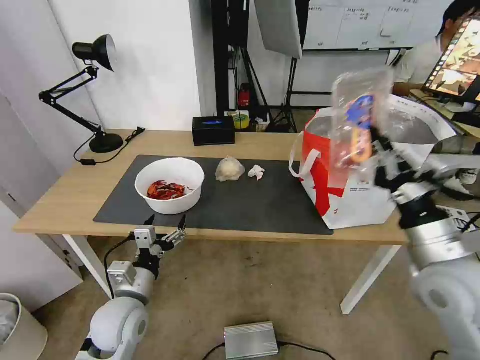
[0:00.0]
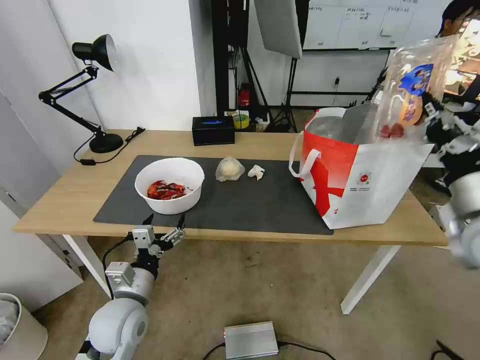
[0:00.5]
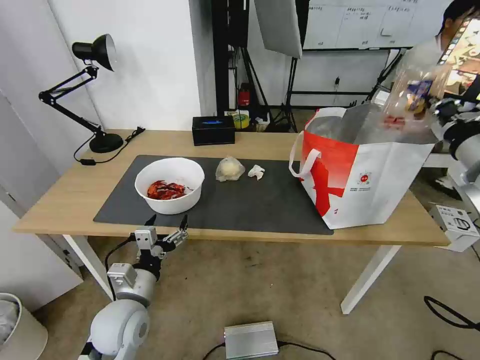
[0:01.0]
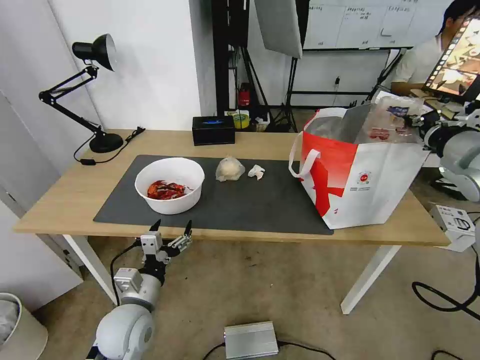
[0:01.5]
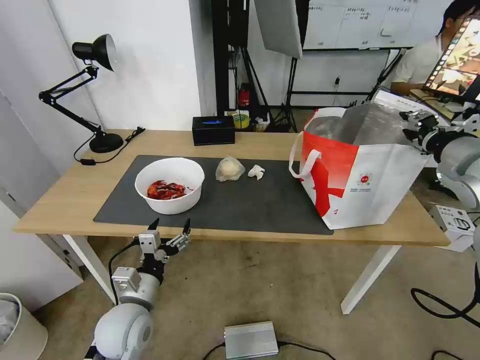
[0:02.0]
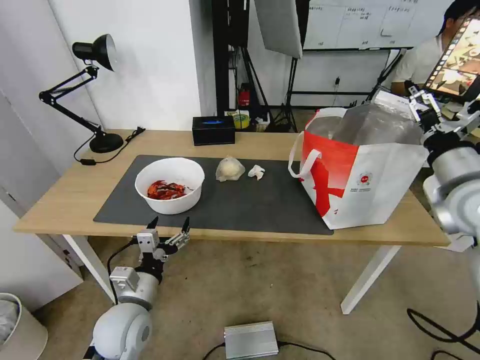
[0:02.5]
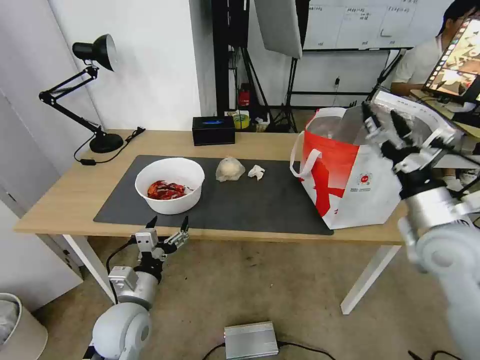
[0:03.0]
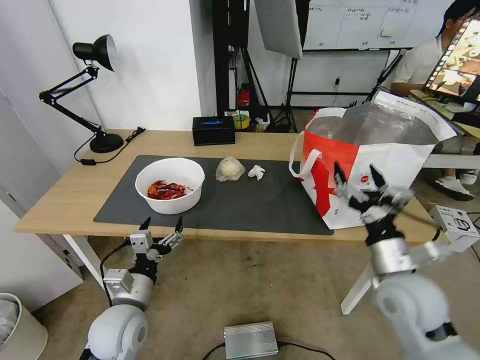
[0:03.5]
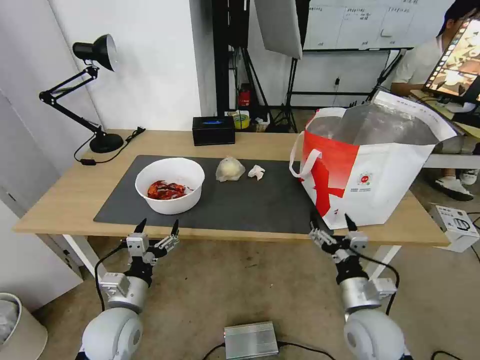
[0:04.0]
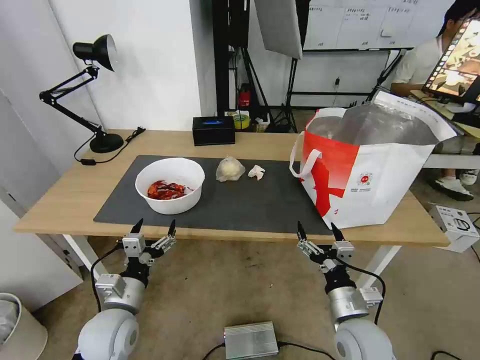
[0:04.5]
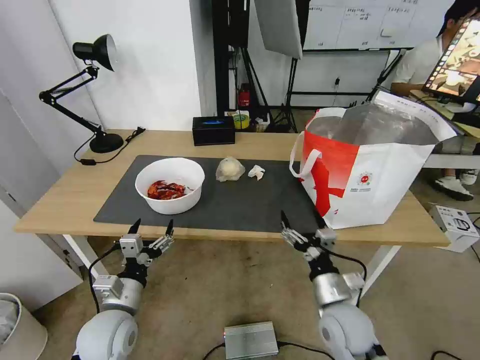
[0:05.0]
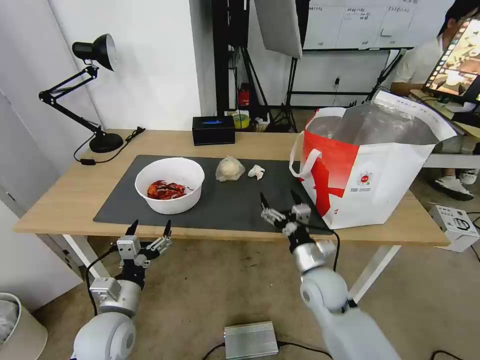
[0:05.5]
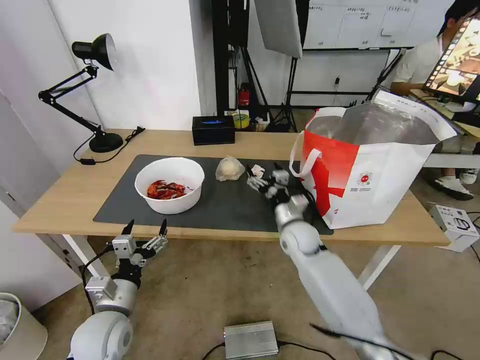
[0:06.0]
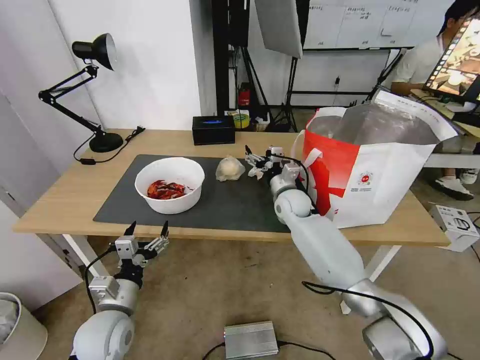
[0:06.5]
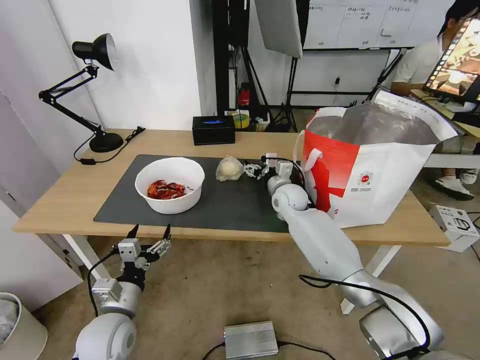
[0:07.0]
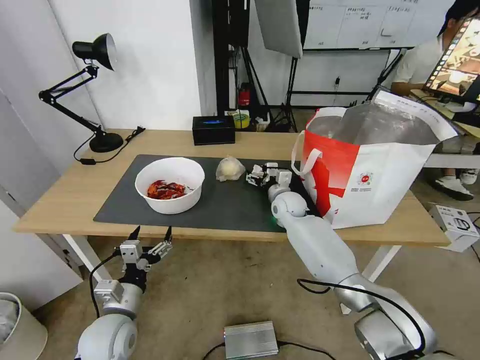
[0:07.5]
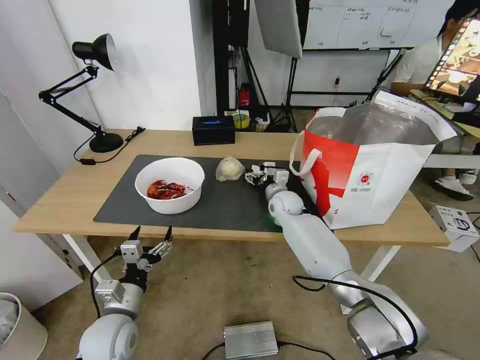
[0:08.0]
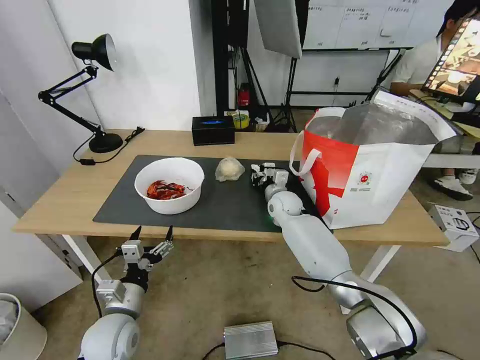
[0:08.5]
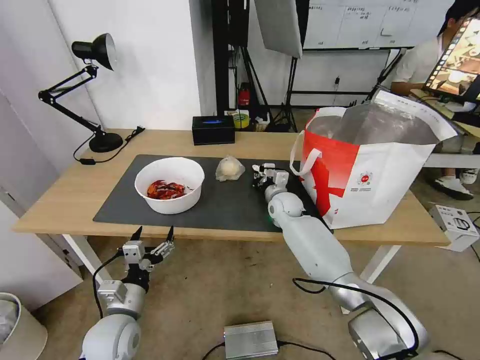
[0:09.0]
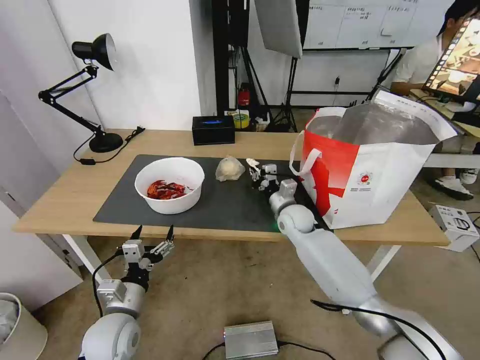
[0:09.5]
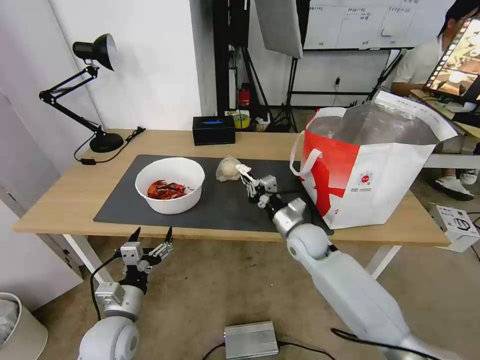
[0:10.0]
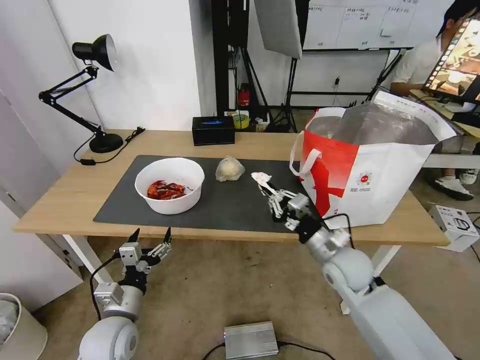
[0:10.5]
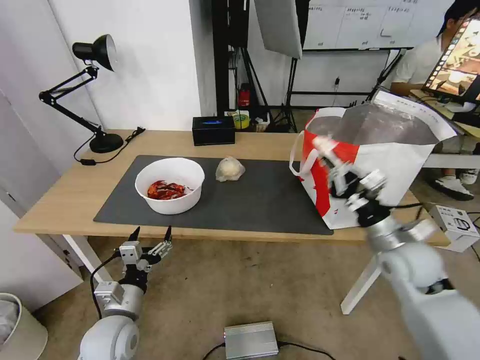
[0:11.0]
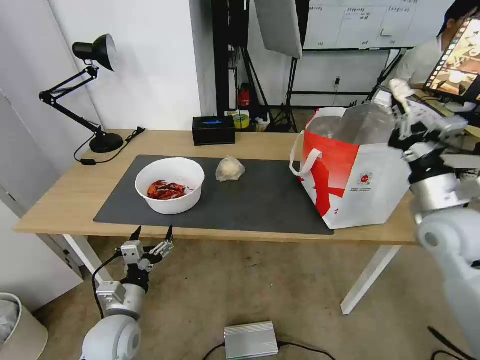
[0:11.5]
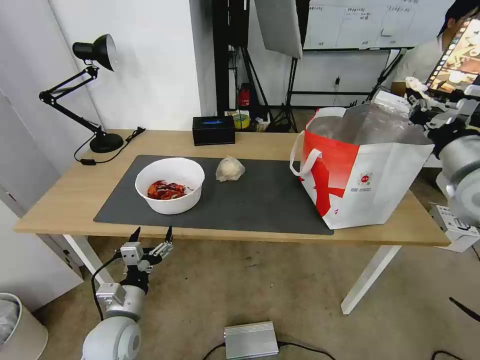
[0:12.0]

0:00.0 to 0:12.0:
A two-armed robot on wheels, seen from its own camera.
Task of the whole recording: Pick up the trash from the table and place it into the takeout bag.
0:00.0 to 0:02.0: The right gripper shifts approximately 20 cm upward, forward and to the right, and opens.
0:02.0 to 0:04.0: The right gripper goes about 35 cm downward, to the left and backward, and opens up.
0:04.0 to 0:06.0: The right gripper is displaced forward and to the left by approximately 25 cm.
0:06.0 to 0:08.0: The right gripper shifts roughly 10 cm forward.
0:08.0 to 0:10.0: The right gripper heads backward, covering about 15 cm, and closes its fingers.
0:10.0 to 0:12.0: The right gripper travels upward and to the right by about 35 cm.

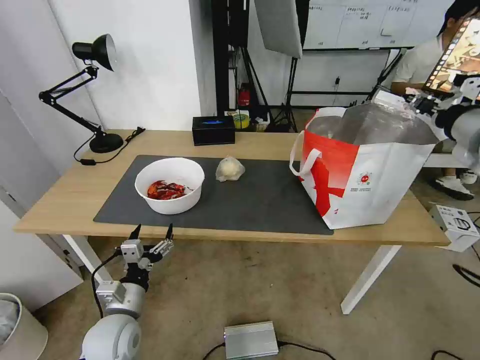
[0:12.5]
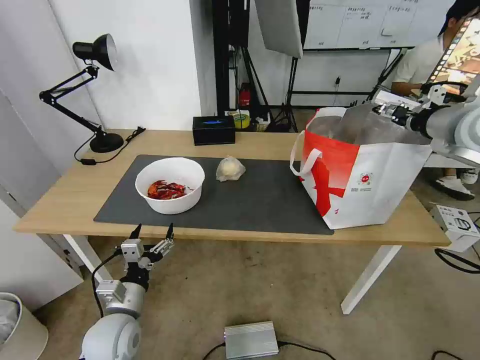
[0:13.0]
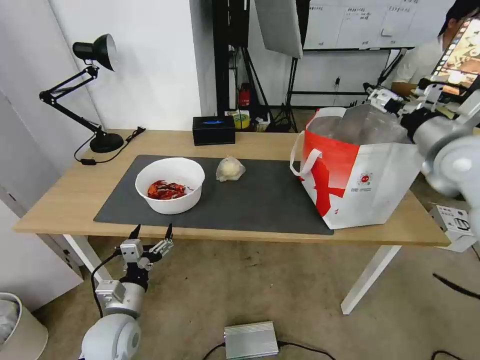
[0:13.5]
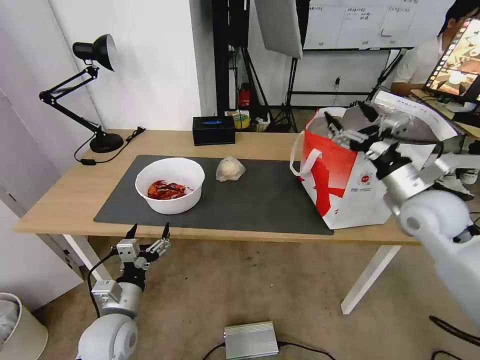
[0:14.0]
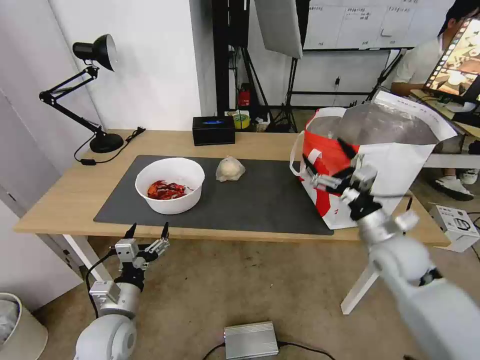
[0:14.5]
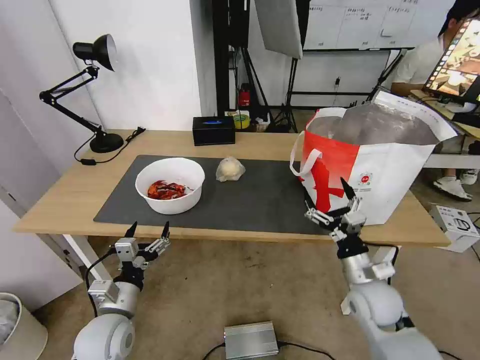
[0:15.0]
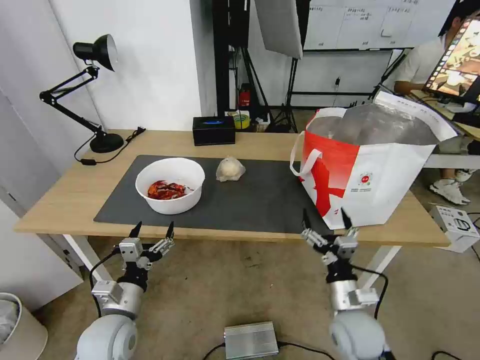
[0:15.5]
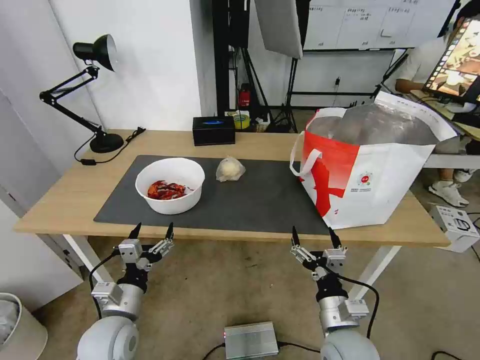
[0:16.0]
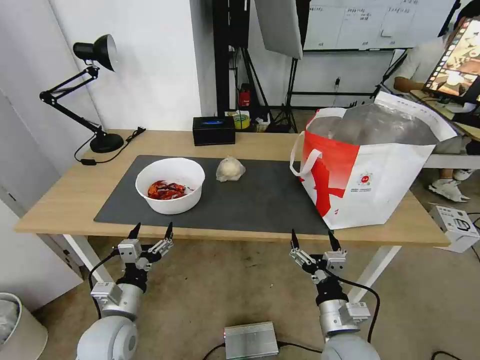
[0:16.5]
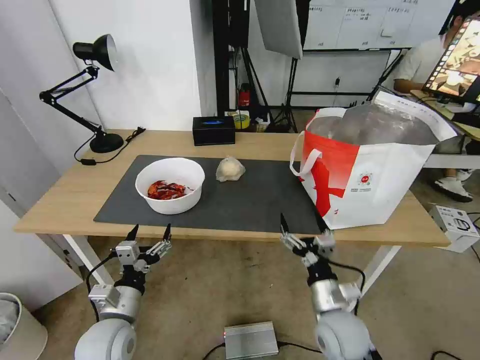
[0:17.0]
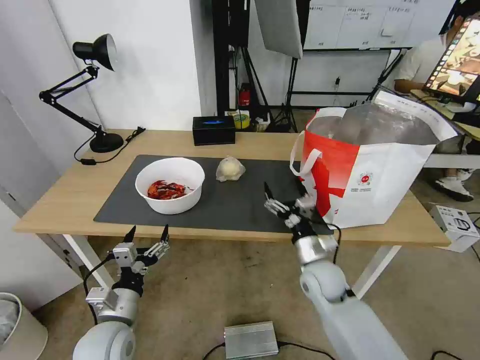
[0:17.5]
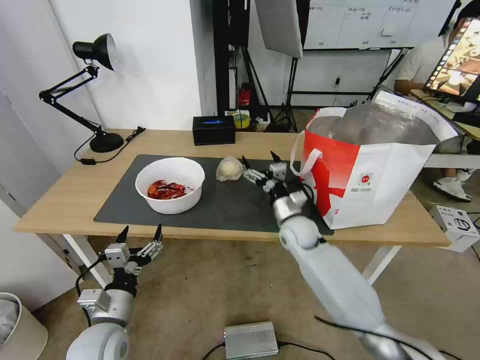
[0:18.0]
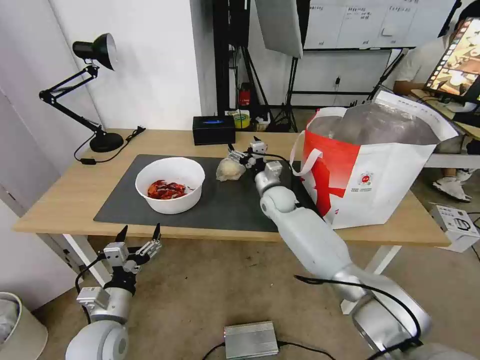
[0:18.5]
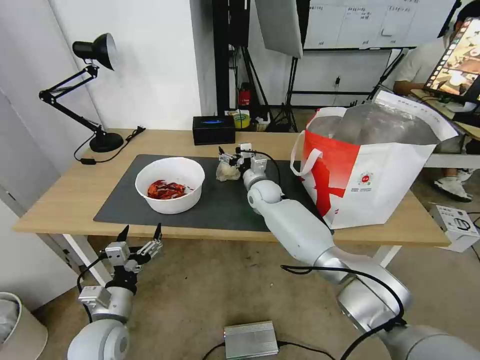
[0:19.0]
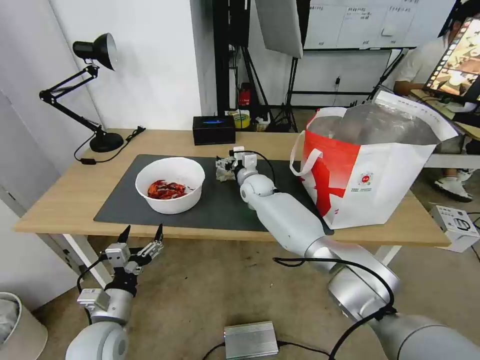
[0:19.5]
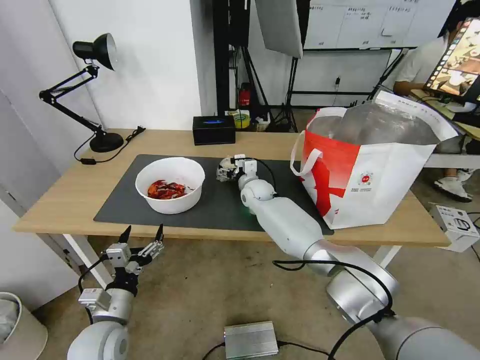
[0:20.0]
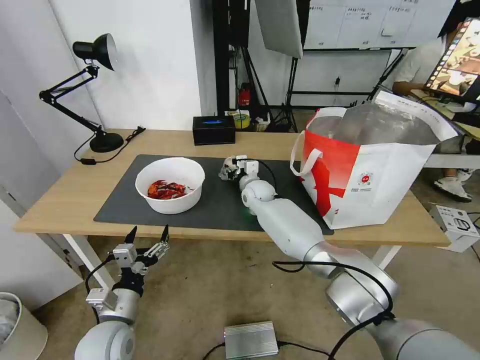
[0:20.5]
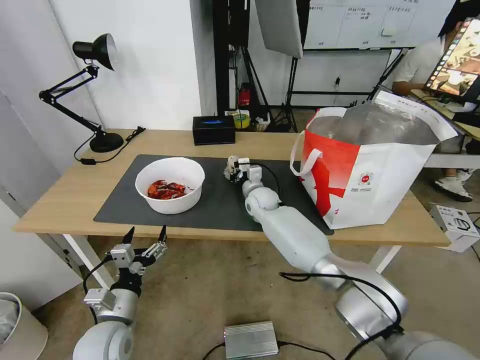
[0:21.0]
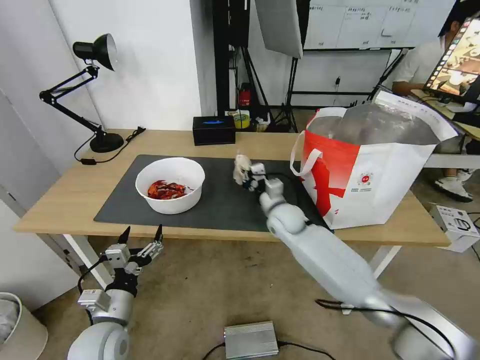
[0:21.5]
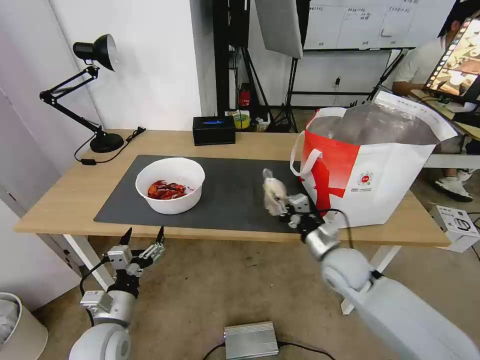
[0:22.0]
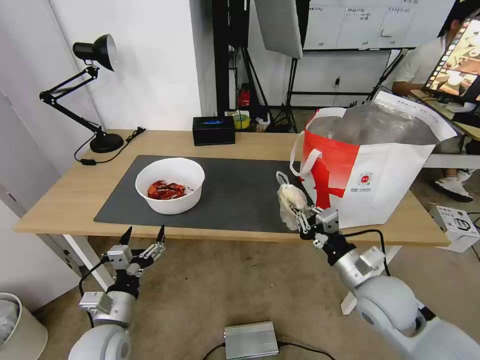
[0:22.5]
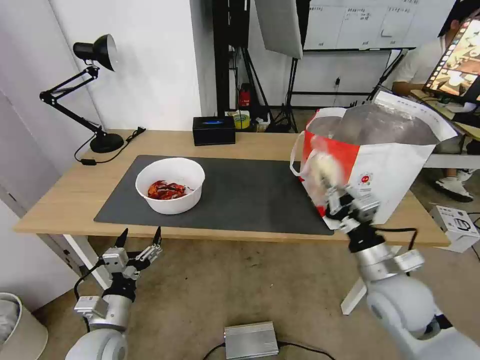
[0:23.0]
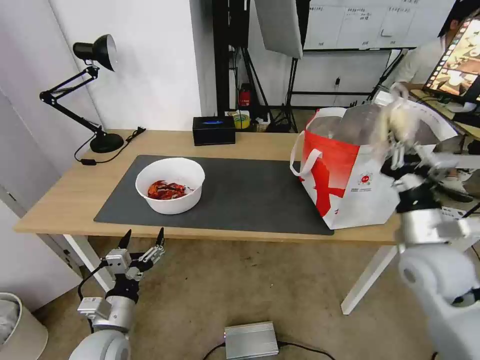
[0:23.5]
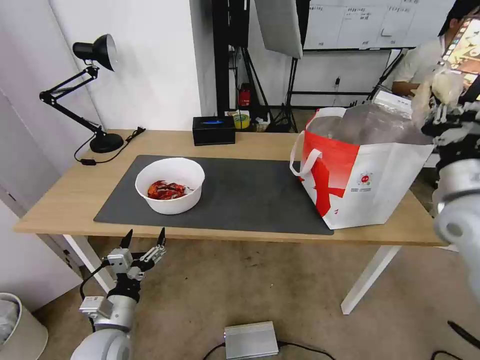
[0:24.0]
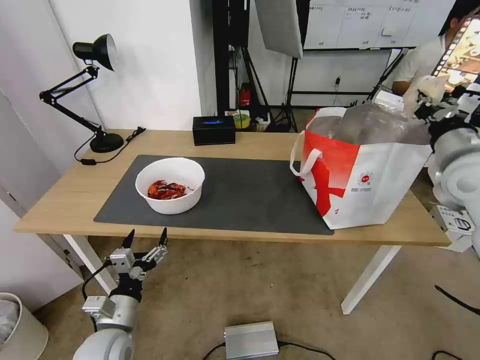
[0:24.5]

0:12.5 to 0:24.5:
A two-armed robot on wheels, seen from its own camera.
Task of the whole recording: Pick up the trash from the table and place it into the takeout bag.
0:12.5 to 0:14.5: The right gripper moves downward and to the left, approximately 25 cm, and opens up.
0:14.5 to 0:16.5: The right gripper heads backward, to the left and downward, covering some 25 cm.
0:16.5 to 0:18.5: The right gripper heads forward, covering roughly 35 cm.
0:18.5 to 0:20.5: The right gripper travels to the left by some 5 cm, and closes its fingers.
0:20.5 to 0:22.5: The right gripper is displaced backward and to the right by roughly 40 cm, and closes its fingers.
0:22.5 to 0:24.5: The right gripper moves upward, forward and to the right, about 25 cm.

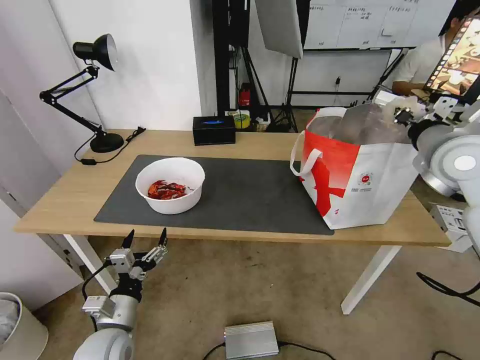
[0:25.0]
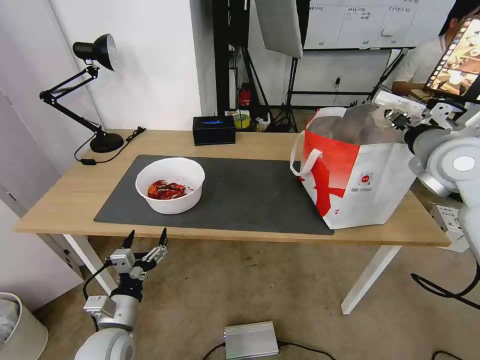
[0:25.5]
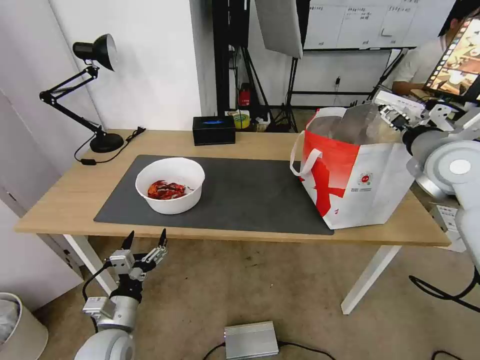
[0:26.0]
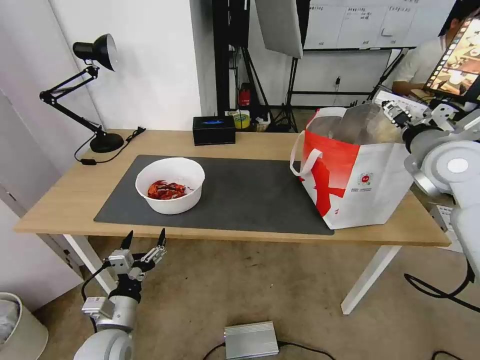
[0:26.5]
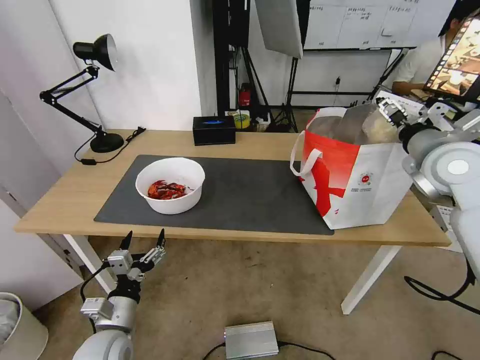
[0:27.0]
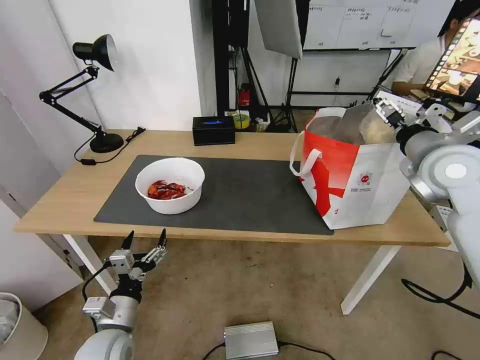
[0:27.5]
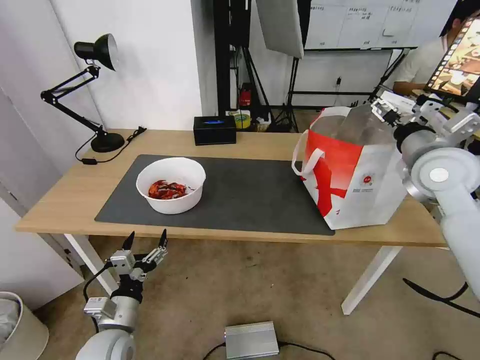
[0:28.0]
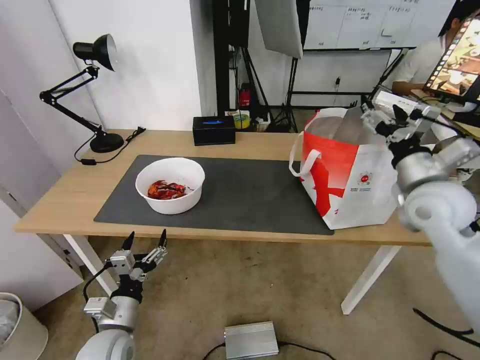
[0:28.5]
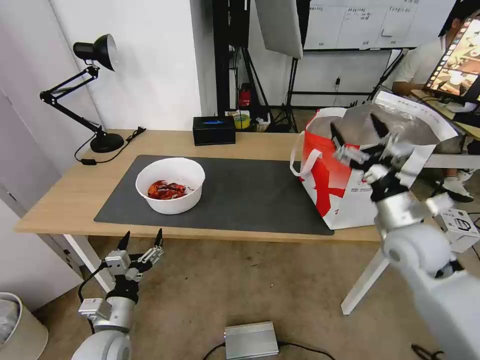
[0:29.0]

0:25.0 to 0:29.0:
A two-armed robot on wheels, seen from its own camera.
Task of the whole recording: Pick up the trash from the table and place it into the takeout bag.
0:25.0 to 0:27.0: The right gripper opens up.
0:27.0 to 0:29.0: The right gripper shifts about 15 cm downward and backward.
